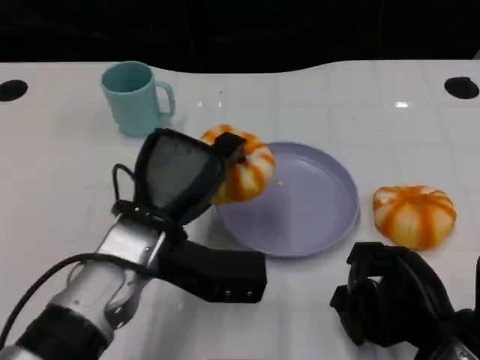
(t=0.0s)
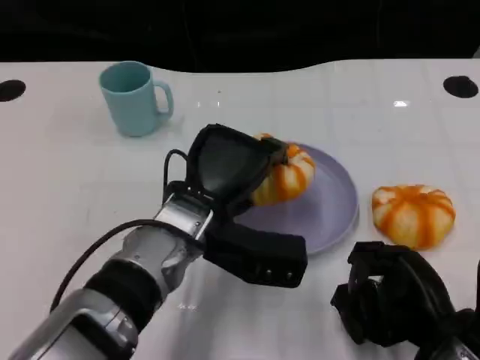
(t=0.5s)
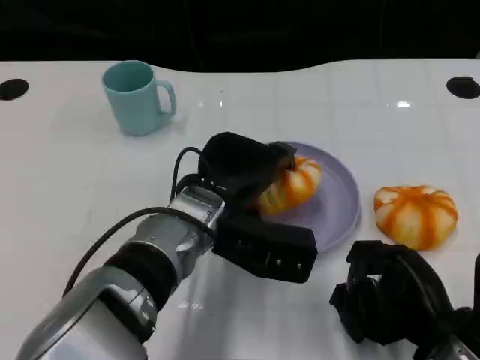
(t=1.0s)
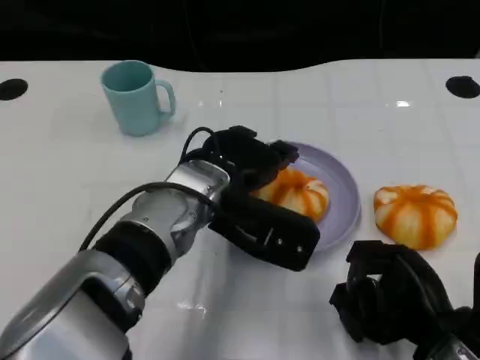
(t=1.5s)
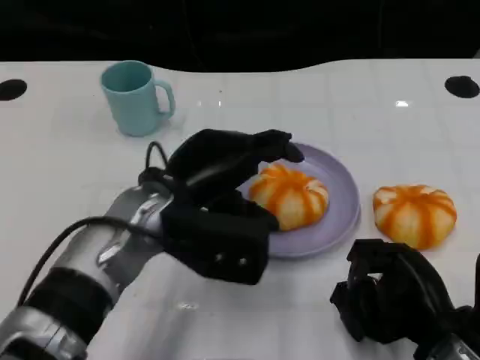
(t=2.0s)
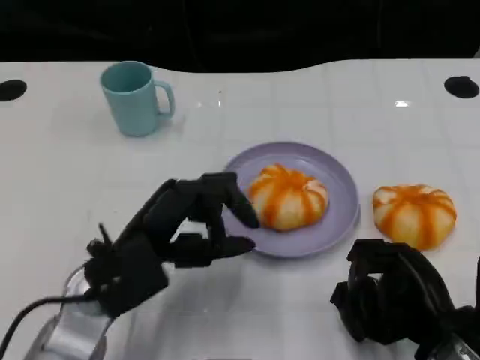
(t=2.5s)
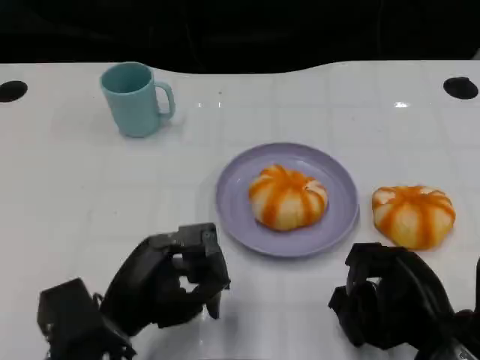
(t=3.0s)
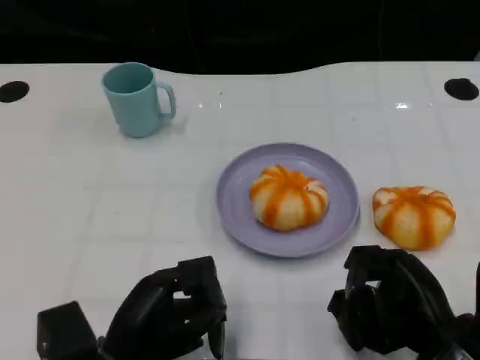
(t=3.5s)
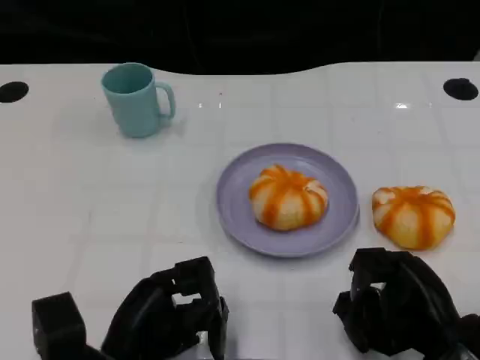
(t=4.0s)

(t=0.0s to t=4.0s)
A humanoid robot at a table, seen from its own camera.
Task of the whole recording: Grasp the bread from the table and place it into the plate.
t=2.0s - t=4.0s: The left hand moves backward, downward and to the left, about 15 cm.

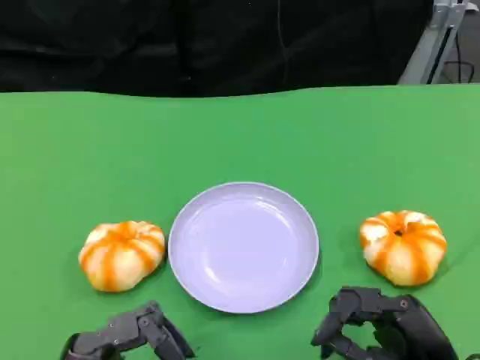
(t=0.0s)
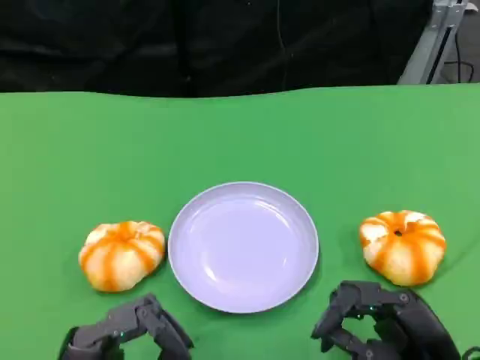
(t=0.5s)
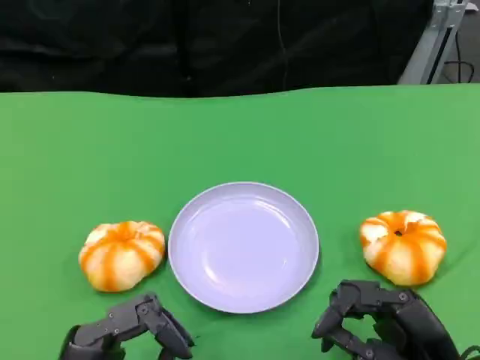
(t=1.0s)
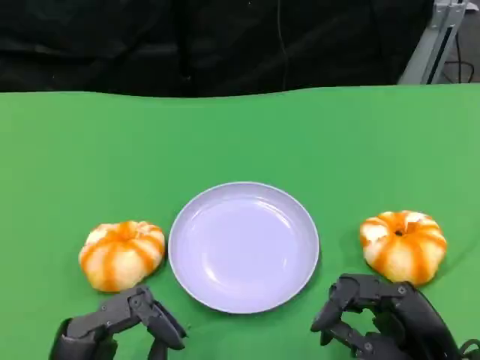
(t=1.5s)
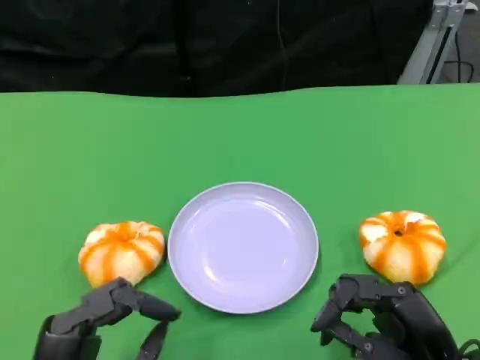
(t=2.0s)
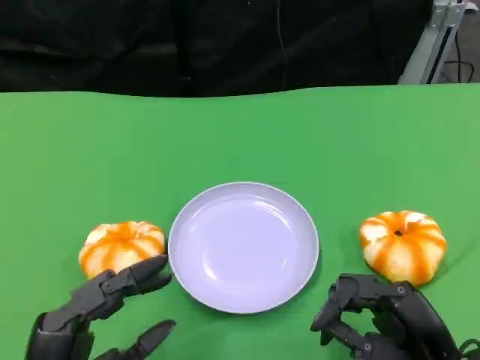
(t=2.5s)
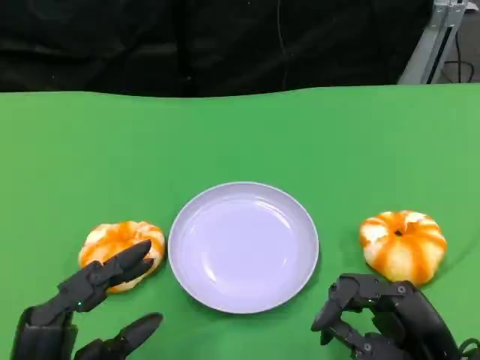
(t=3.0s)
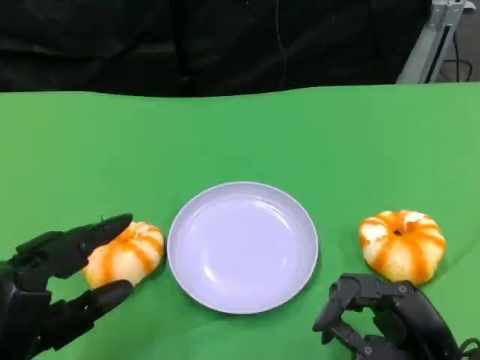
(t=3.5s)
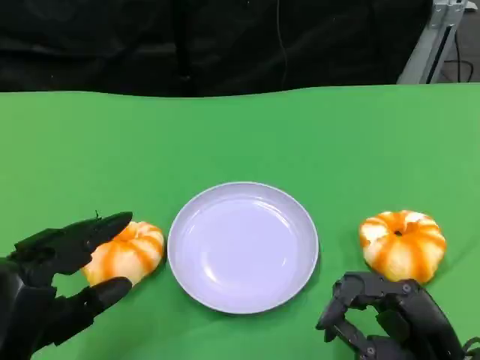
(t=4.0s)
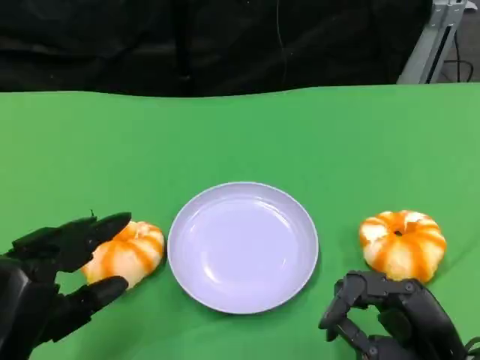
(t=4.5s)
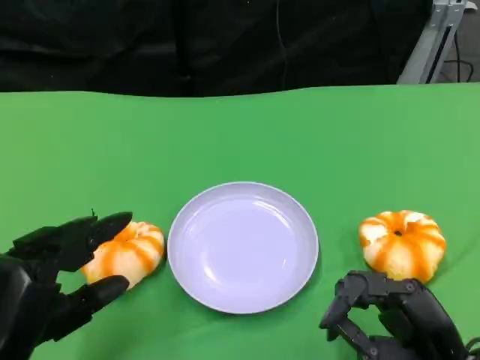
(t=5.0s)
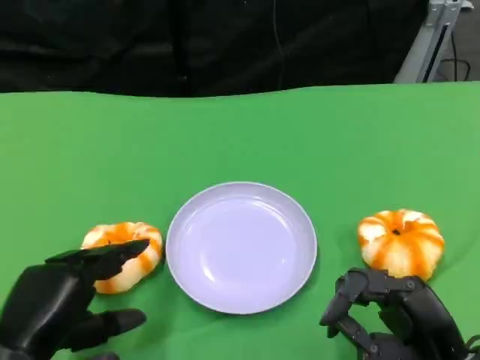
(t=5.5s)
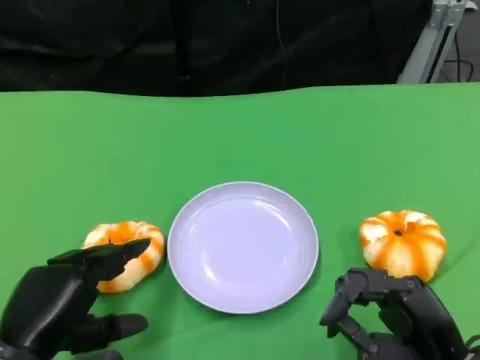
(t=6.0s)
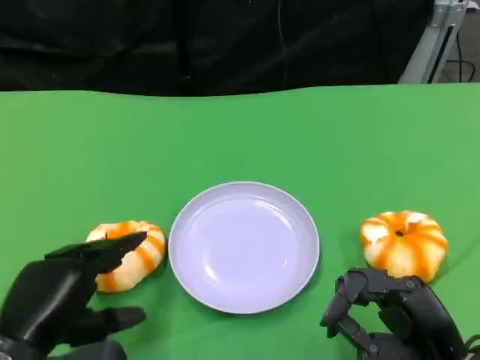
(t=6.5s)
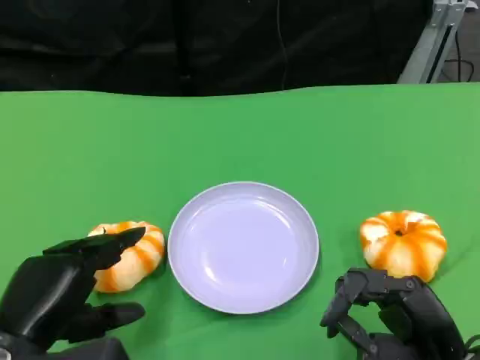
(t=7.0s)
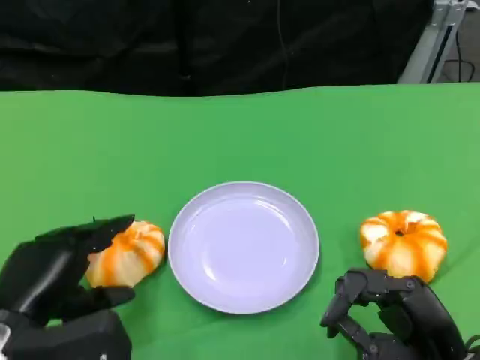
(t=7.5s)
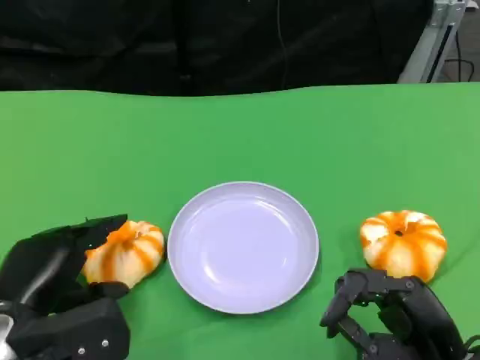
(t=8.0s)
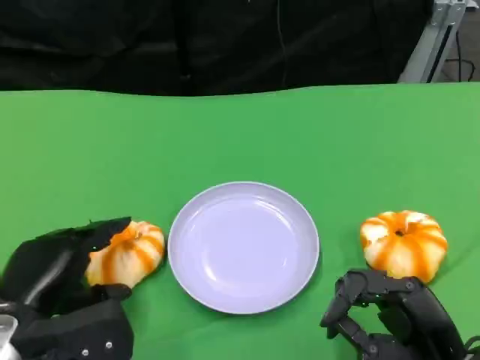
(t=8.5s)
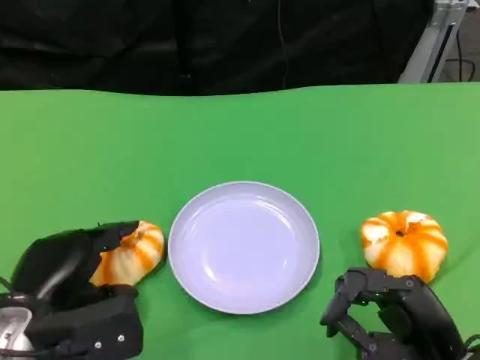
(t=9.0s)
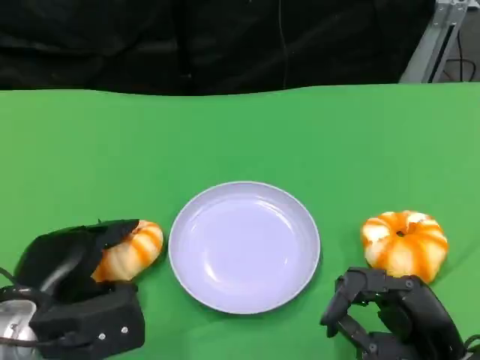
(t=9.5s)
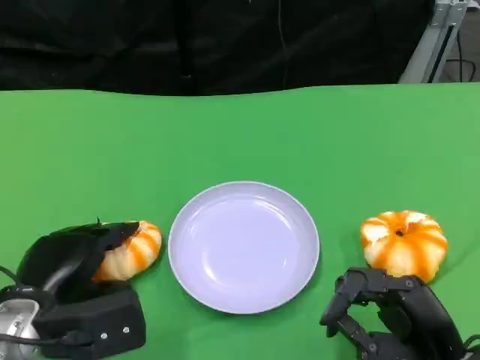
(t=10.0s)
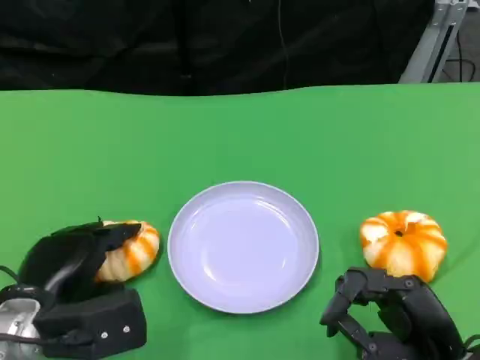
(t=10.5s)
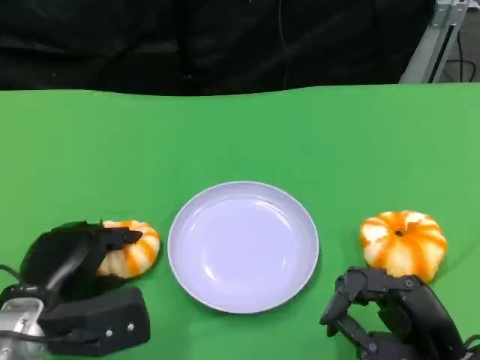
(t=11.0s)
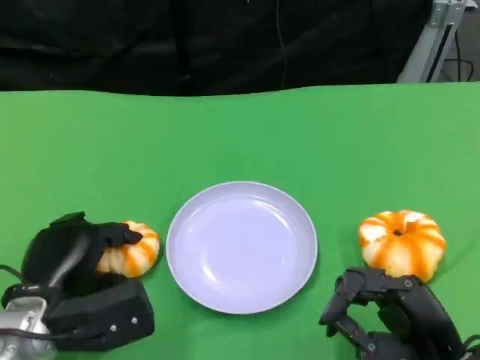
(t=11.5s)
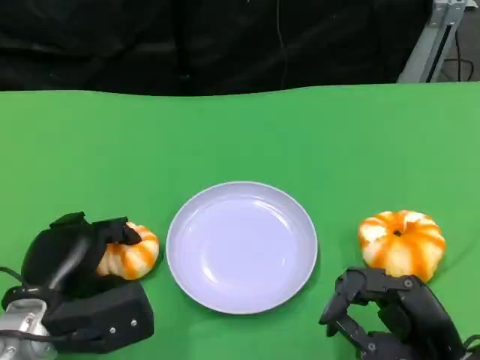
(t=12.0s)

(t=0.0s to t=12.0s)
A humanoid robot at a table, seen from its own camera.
Task of the whole recording: Grasp the bread from the table and place it into the plate.
t=0.0s - t=2.0s: The hands stay close to where they were, moving slightly.
t=2.0s - t=4.0s: The left hand changes place by some 5 cm.
t=6.0s - t=8.0s: There are only small adjustments of the hands.
t=8.0s - t=12.0s: There are only small adjustments of the hands.

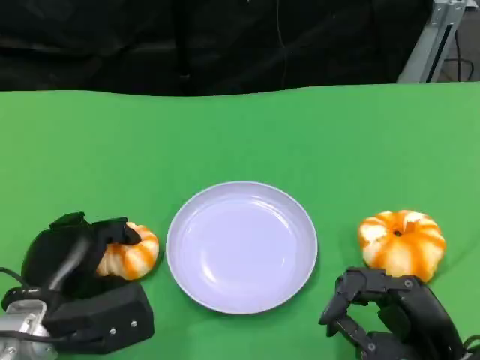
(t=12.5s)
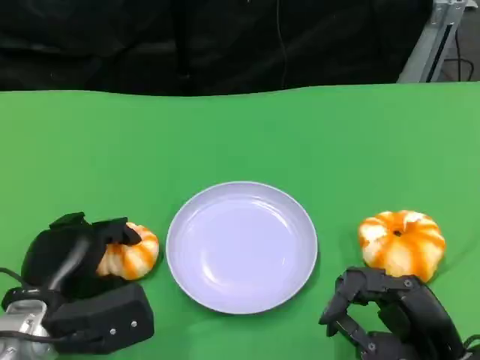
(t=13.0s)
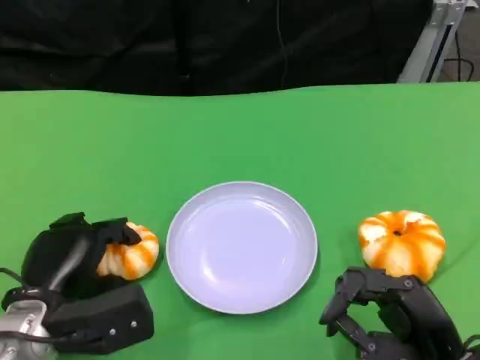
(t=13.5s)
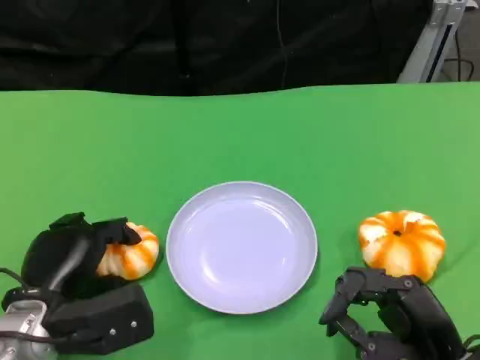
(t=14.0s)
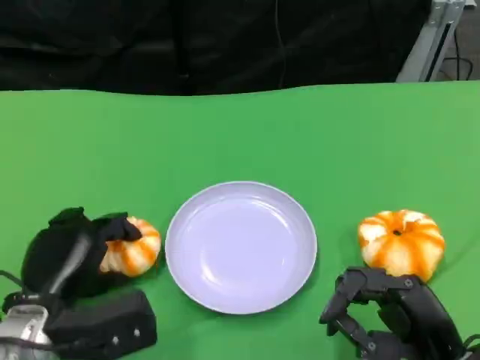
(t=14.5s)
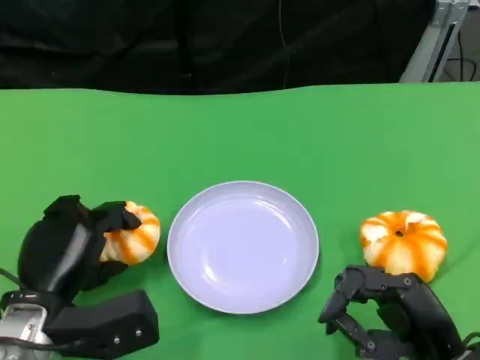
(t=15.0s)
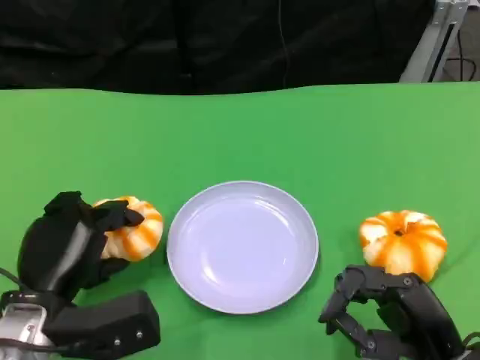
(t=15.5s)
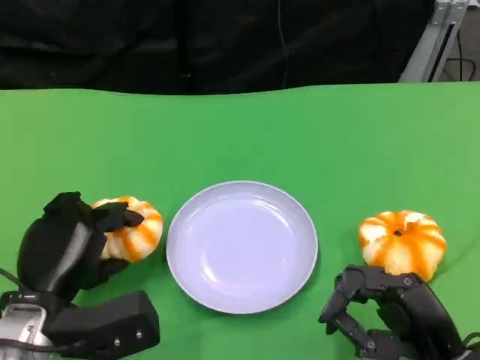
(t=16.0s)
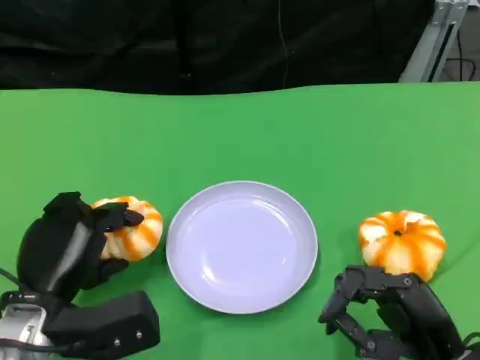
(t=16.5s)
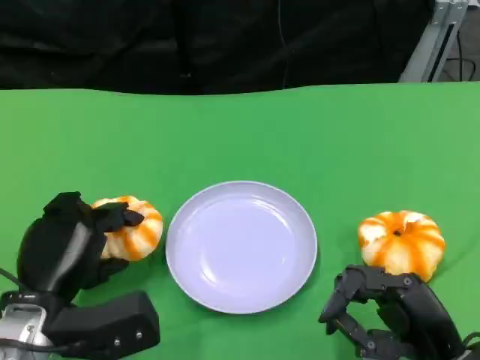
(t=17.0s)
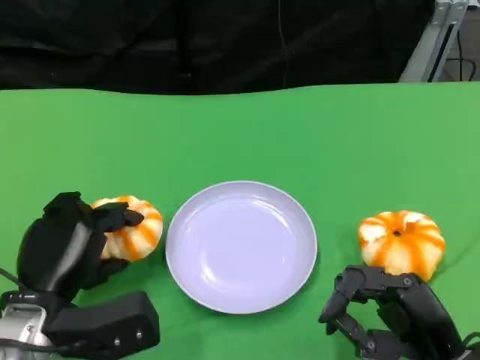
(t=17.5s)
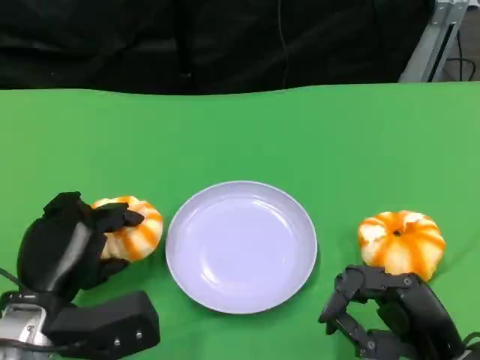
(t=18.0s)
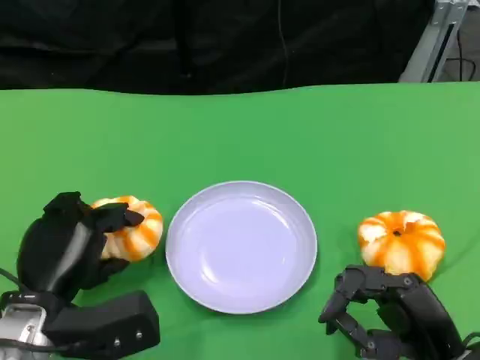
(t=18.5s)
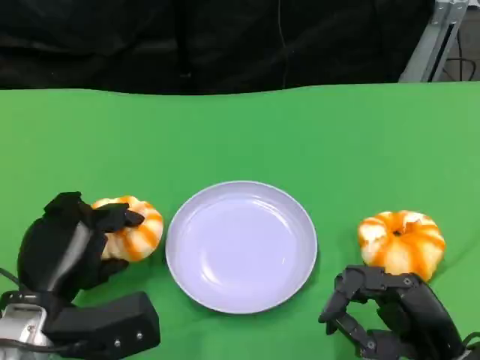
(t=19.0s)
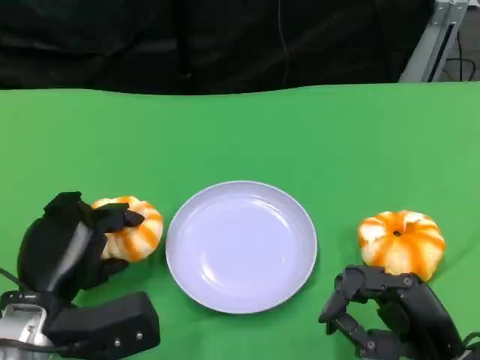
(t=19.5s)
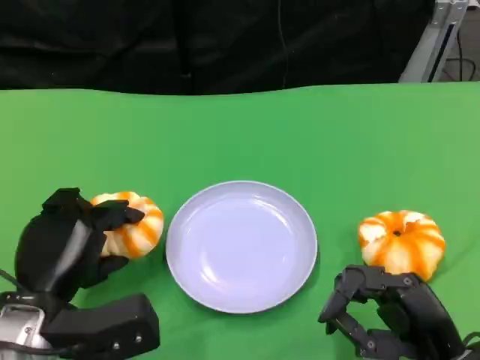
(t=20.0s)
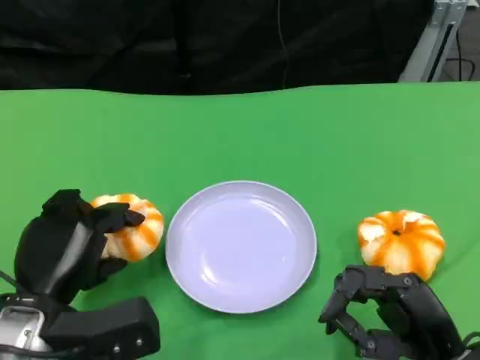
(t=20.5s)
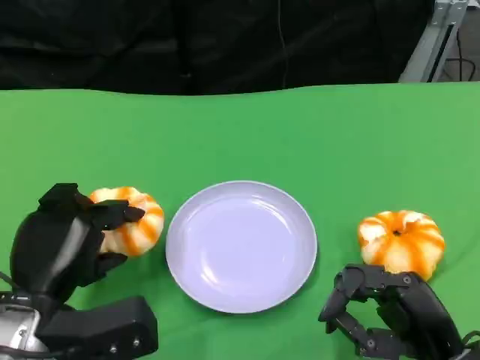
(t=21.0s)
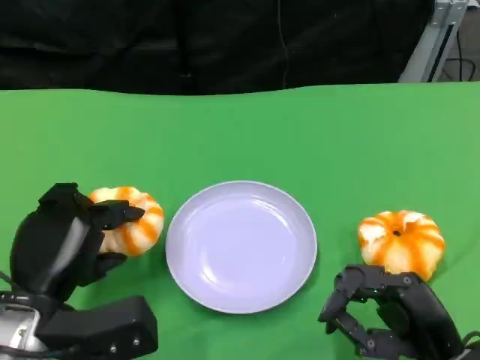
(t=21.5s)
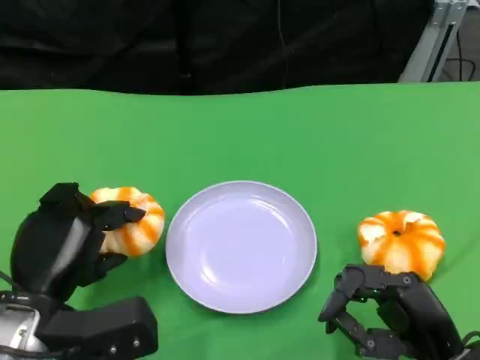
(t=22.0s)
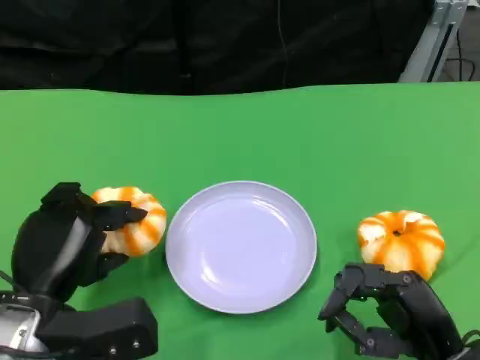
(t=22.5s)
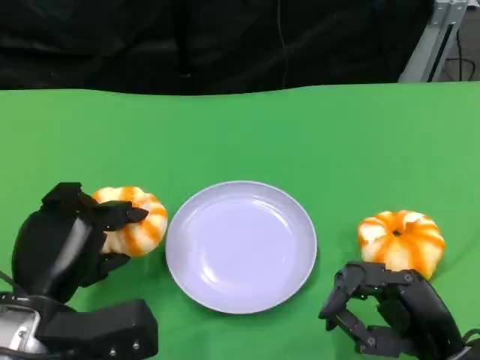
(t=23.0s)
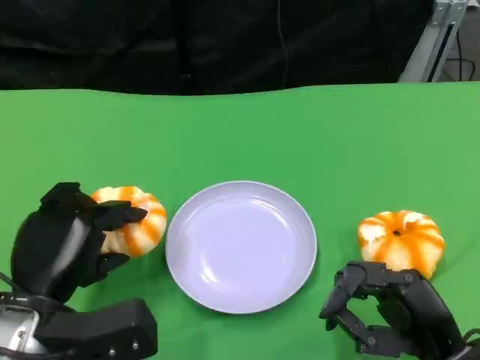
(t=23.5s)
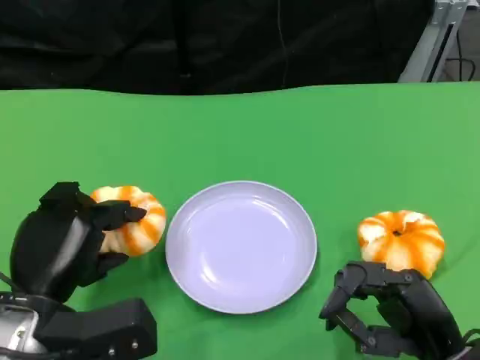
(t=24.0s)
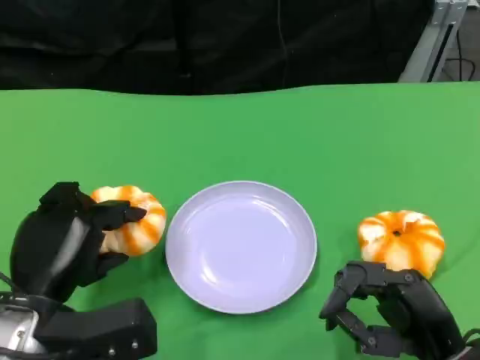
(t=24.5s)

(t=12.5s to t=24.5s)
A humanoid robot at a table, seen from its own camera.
Task of the whole recording: Grasp the bread from the table and place it into the plate.
t=12.5s - t=14.5s: The hands stay close to where they were, moving slightly.
t=14.5s - t=18.5s: Both hands stay about where they are.
t=18.5s - t=20.5s: Neither hand changes place.
t=20.5s - t=24.5s: Both hands stay put.
